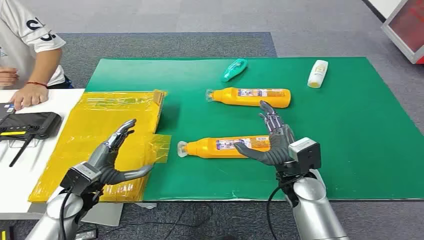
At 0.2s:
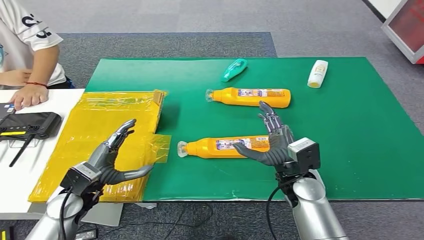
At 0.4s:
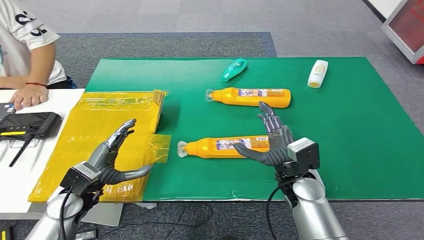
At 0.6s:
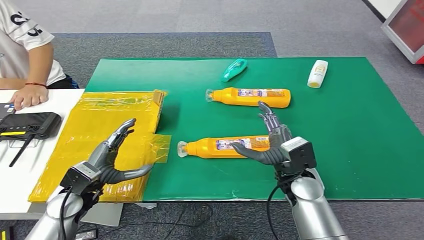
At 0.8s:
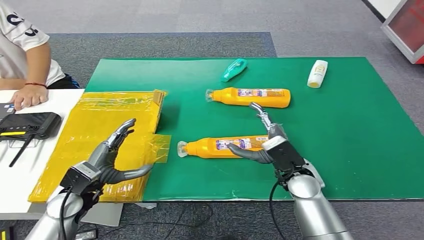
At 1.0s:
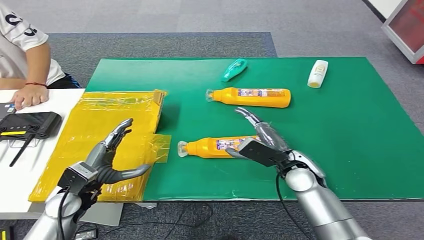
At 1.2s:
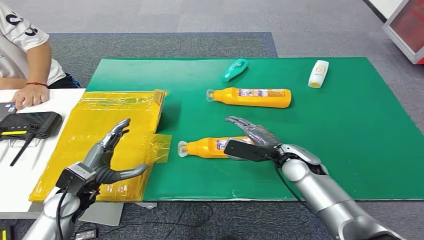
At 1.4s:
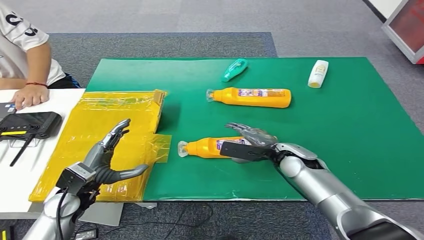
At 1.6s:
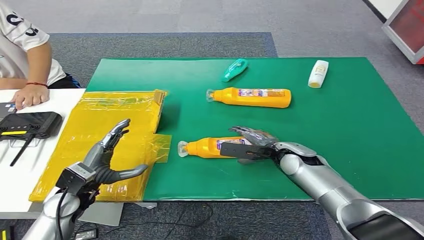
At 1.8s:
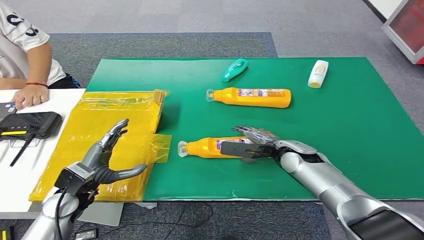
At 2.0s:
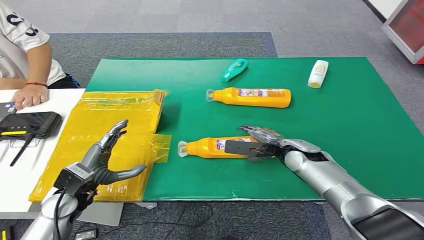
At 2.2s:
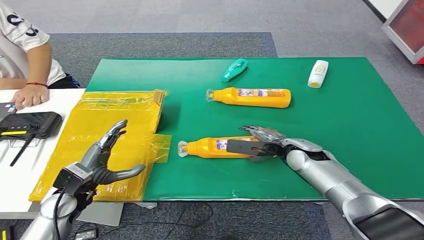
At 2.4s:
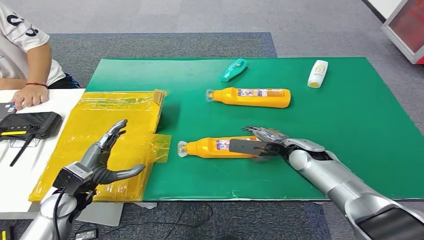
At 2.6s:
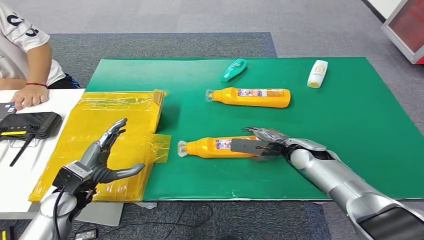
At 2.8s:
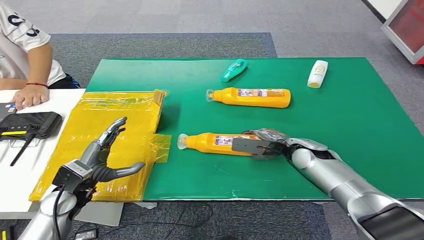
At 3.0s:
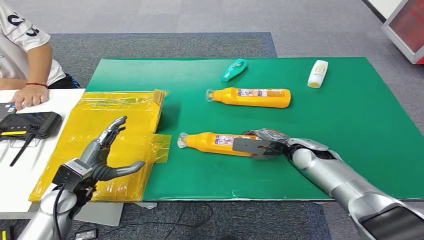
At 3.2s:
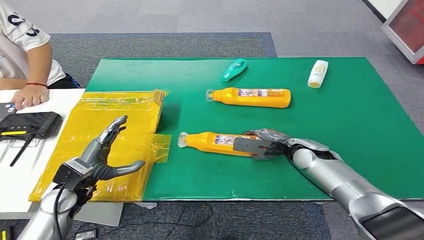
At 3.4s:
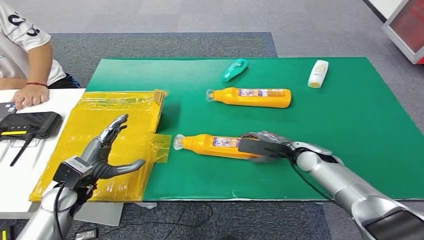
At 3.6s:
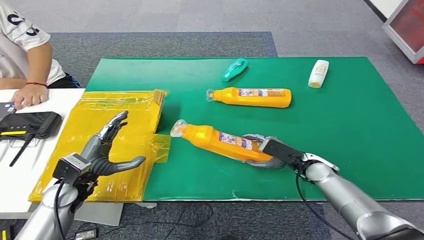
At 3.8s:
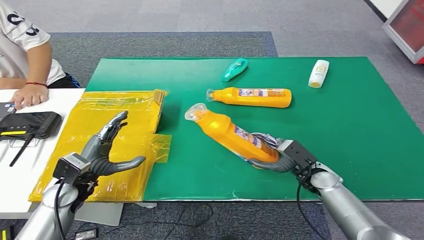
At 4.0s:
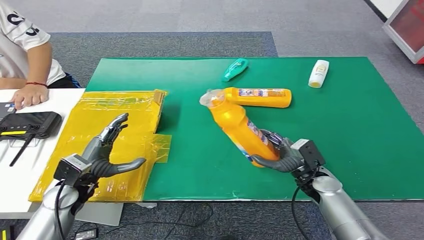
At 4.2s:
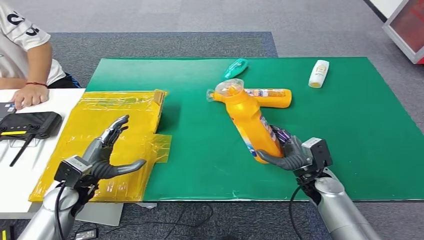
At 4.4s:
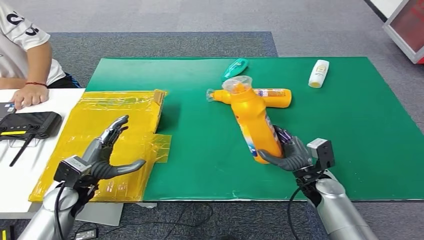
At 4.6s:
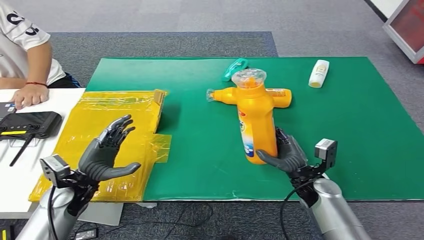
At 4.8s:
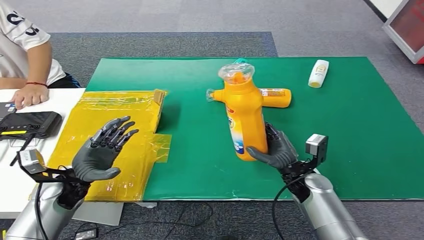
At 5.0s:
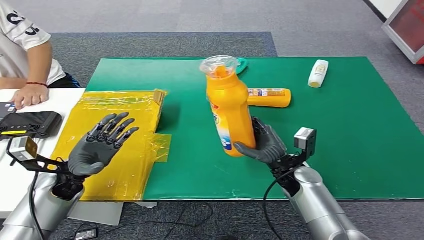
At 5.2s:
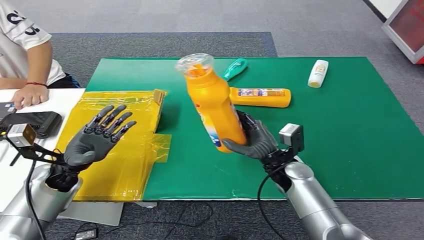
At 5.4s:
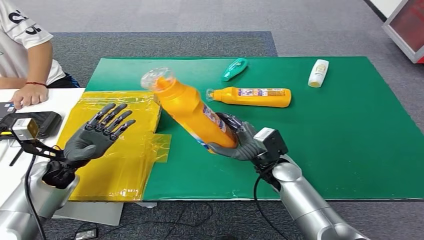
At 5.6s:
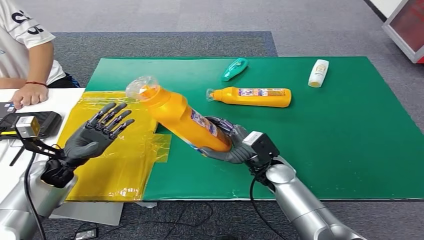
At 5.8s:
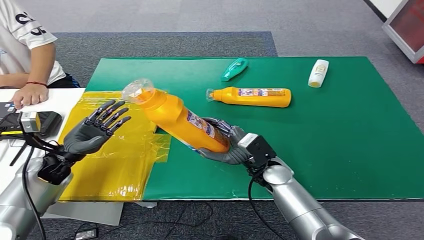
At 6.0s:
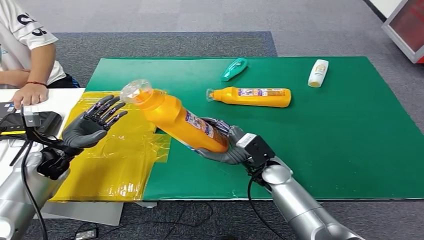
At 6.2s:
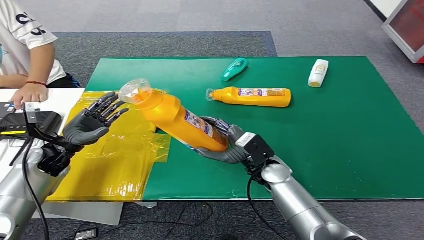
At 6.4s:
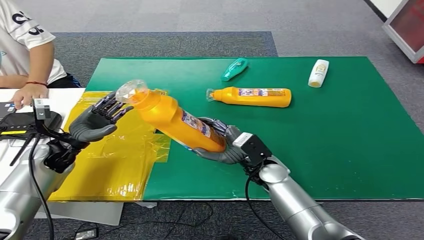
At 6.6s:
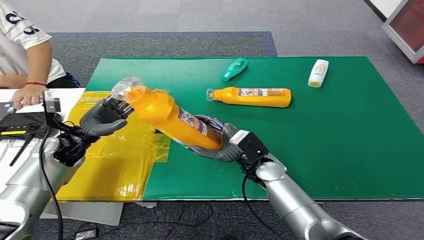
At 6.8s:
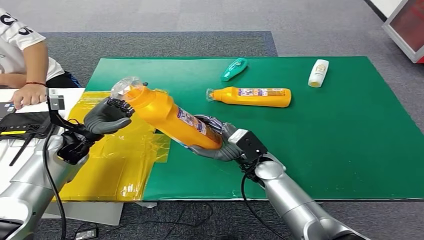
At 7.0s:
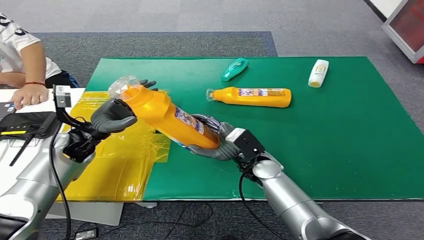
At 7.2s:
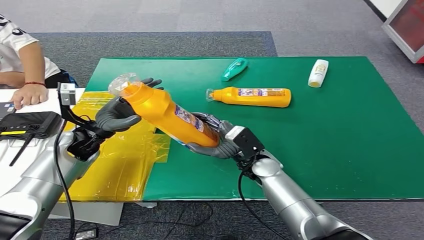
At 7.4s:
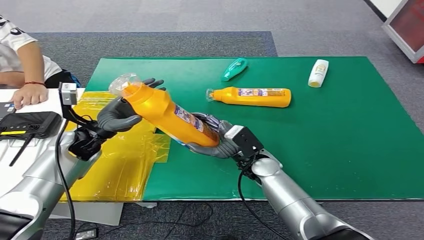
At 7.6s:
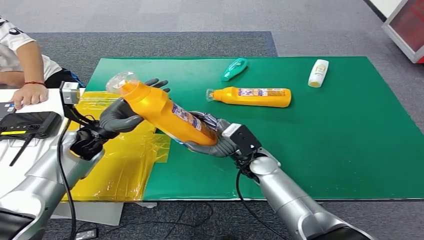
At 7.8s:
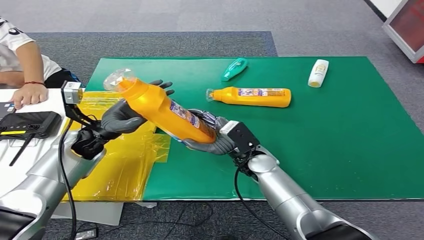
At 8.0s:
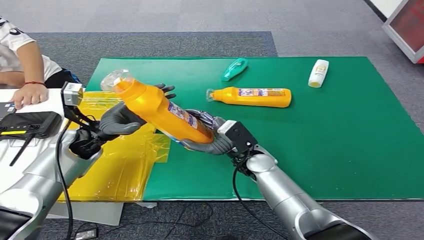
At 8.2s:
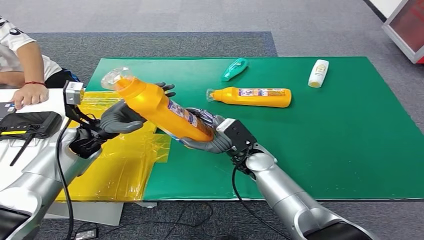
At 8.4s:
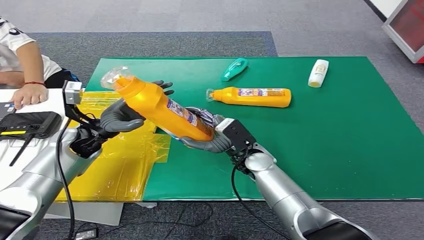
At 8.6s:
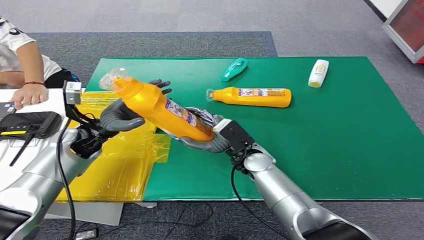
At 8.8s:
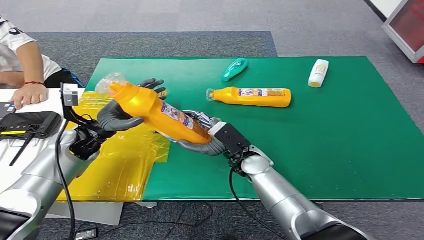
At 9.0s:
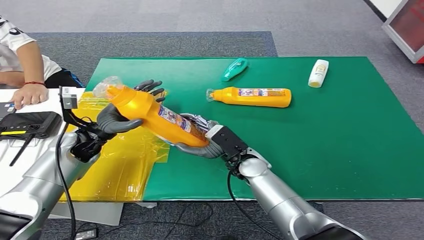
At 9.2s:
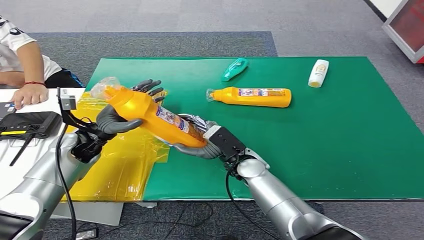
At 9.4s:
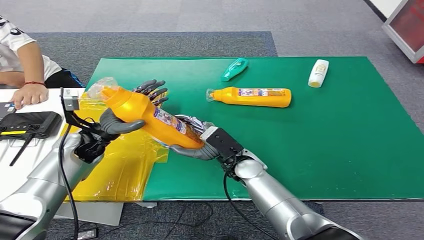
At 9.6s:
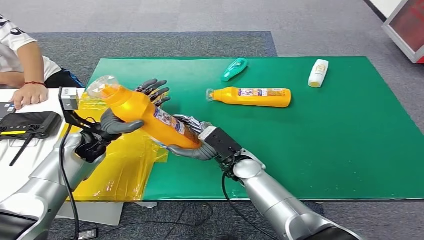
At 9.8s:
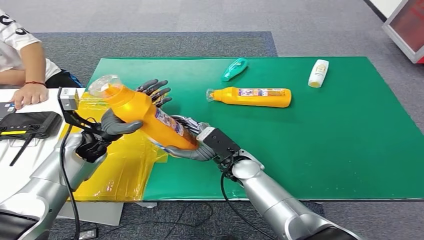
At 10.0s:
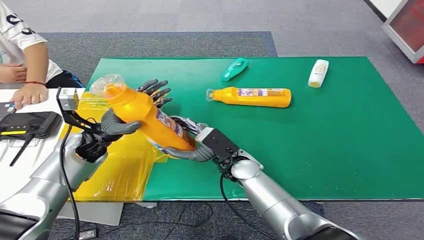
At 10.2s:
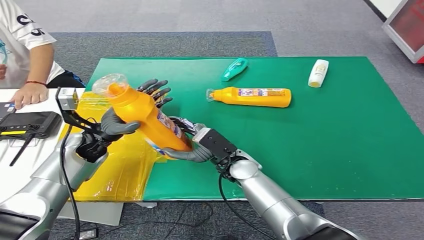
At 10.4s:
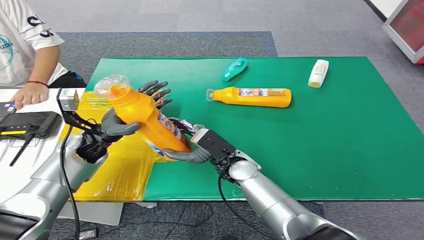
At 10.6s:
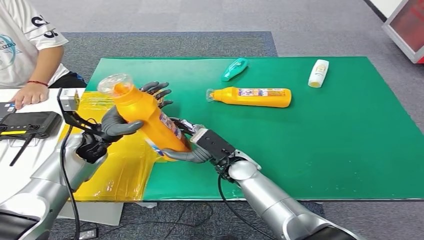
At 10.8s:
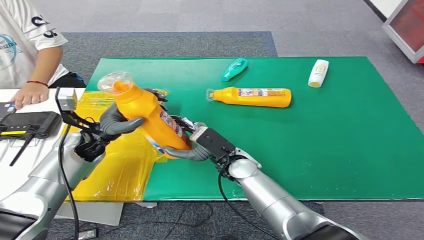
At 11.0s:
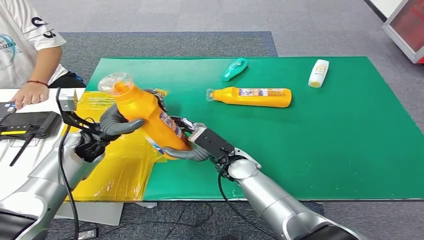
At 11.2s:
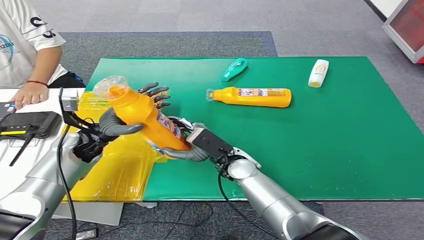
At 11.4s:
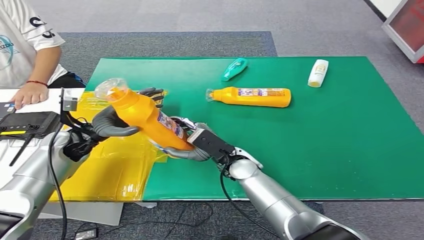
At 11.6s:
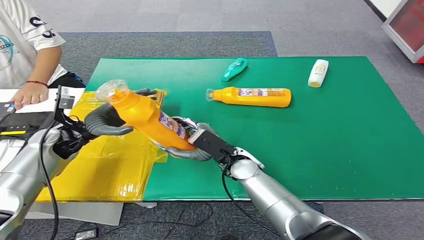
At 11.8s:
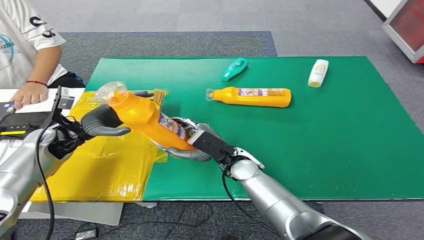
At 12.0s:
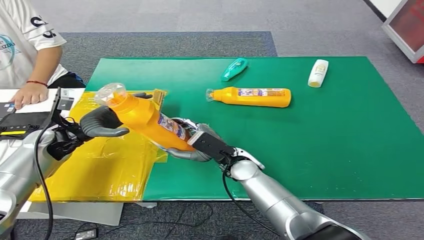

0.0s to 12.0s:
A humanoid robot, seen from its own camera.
Step, 0.0s to 6.2s: Pick up the bottle from the table.
1.6s to 3.0s: The hands move only a little.
3.0s to 4.4s: The right hand goes some 10 cm backward.
7.6s to 9.0s: The hands stay close to where they were, moving slightly.
10.4s to 12.0s: The left hand travels to the left by approximately 10 cm.

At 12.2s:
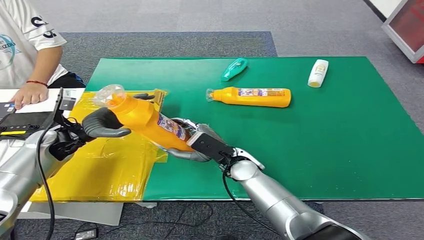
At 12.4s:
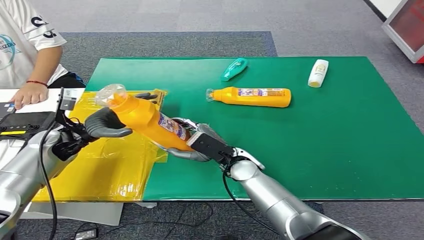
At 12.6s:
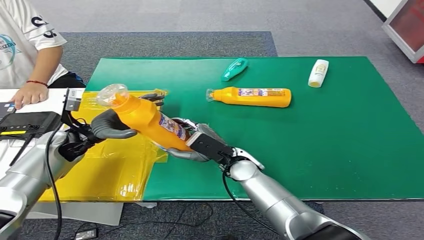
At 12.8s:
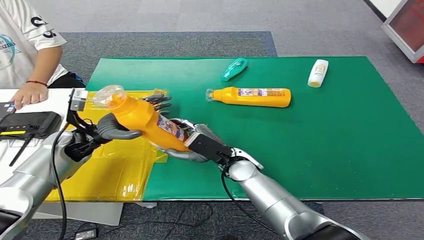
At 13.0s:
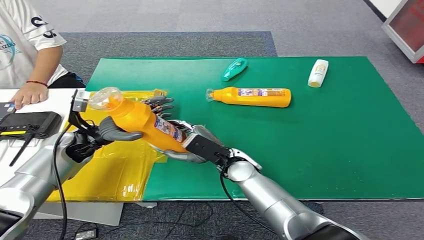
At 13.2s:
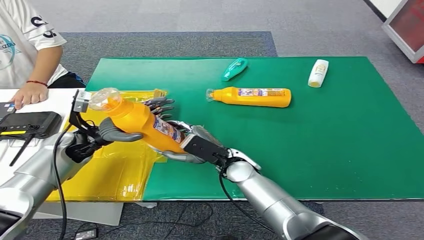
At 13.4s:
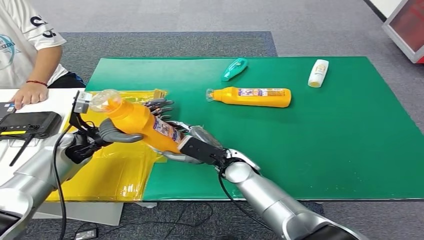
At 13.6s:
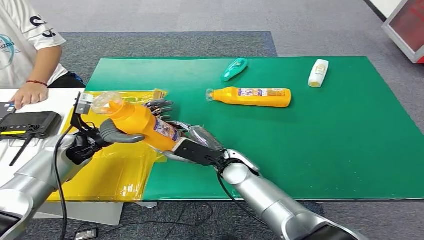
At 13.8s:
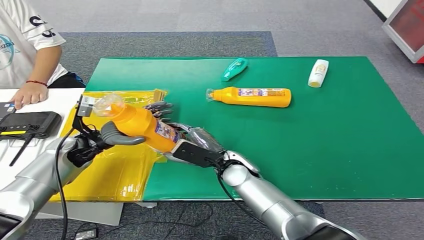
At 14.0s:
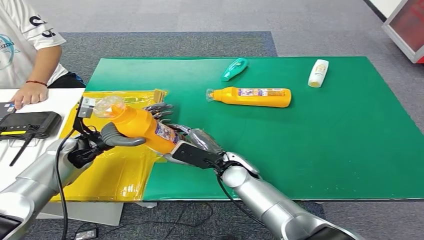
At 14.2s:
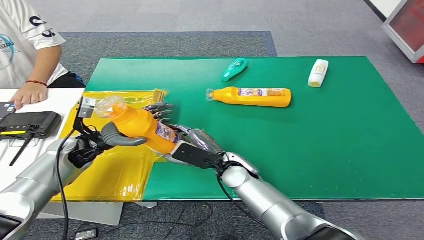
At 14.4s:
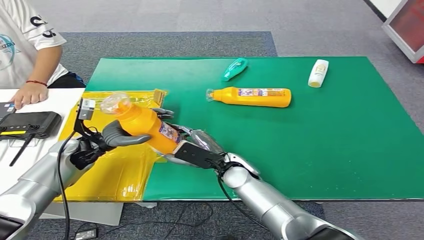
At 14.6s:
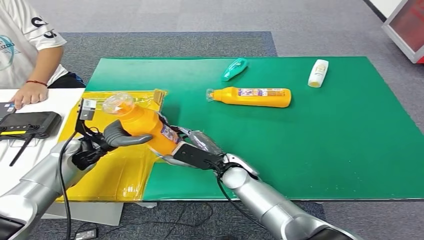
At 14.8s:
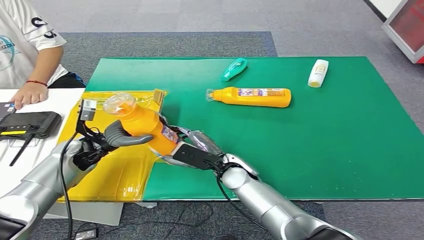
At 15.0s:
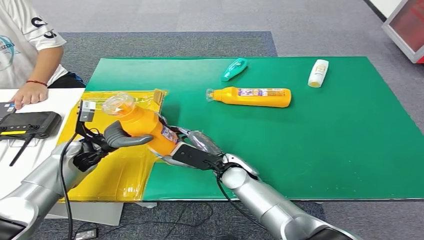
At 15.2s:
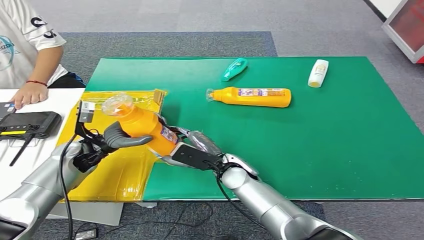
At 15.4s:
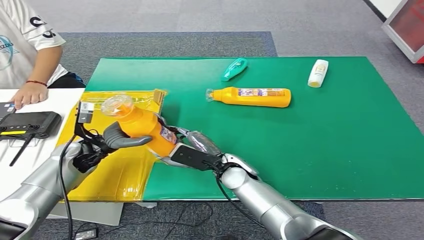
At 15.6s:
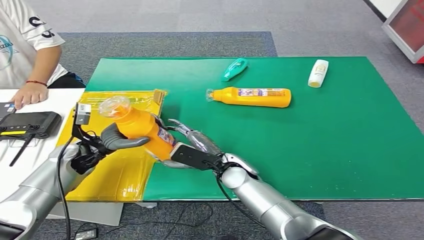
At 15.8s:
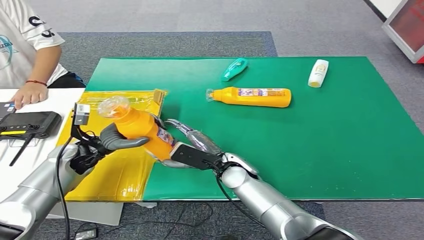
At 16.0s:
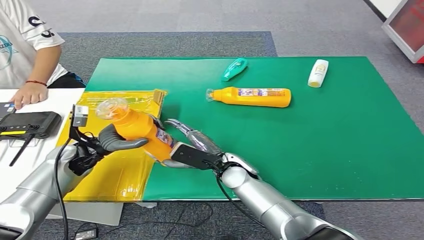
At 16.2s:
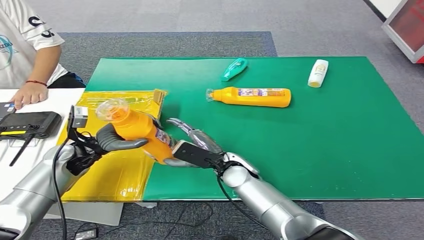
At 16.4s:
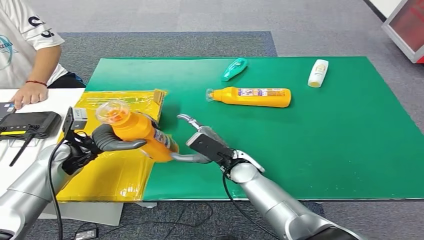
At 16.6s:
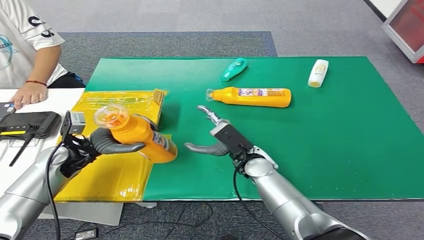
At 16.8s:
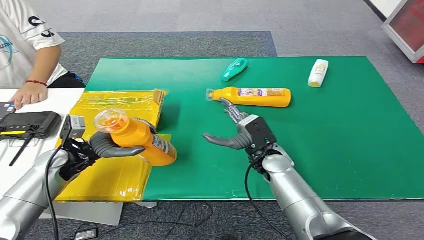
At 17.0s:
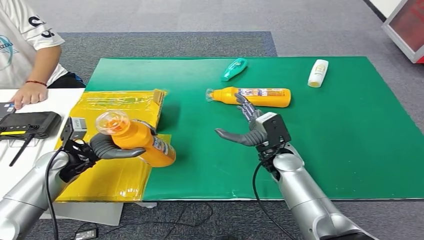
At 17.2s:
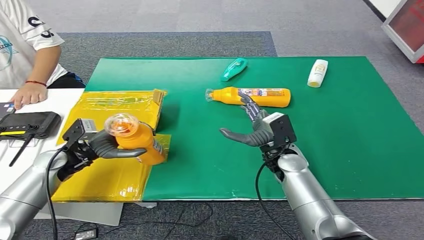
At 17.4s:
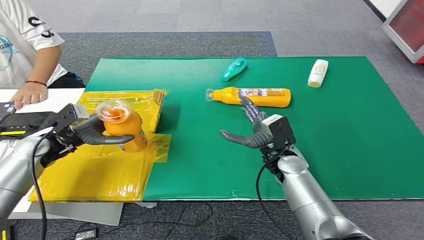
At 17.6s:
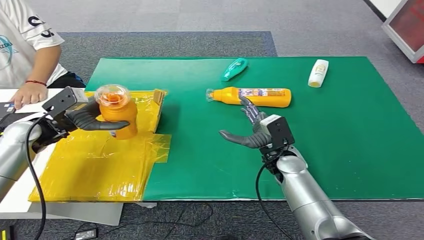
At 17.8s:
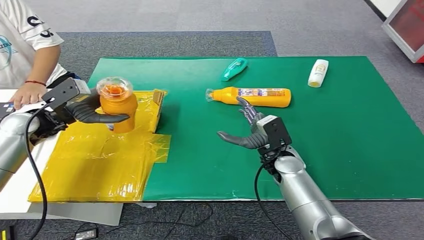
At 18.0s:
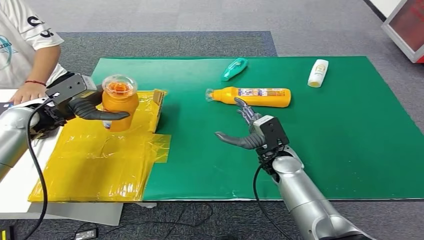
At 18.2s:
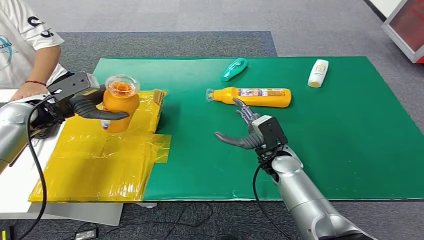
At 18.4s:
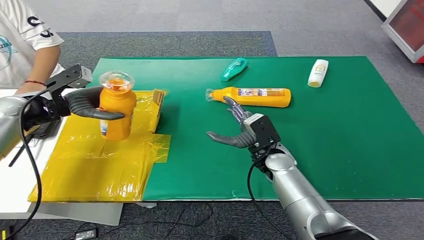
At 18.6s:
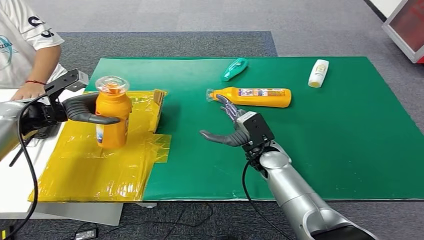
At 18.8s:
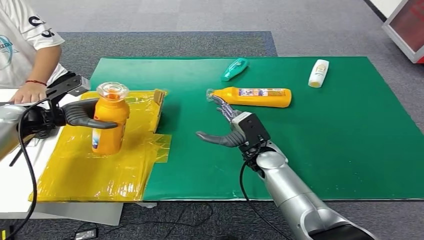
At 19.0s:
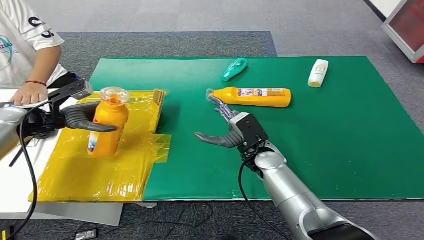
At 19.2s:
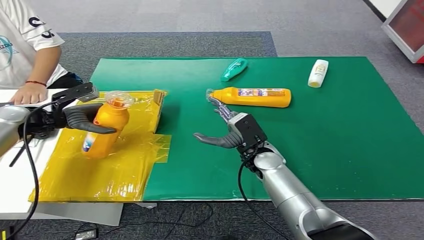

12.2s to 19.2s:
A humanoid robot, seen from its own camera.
Step, 12.2s to 19.2s: Turn the bottle to the front side.
12.2s to 15.0s: The hands move only a little.
15.0s to 16.4s: The hands make only small movements.
